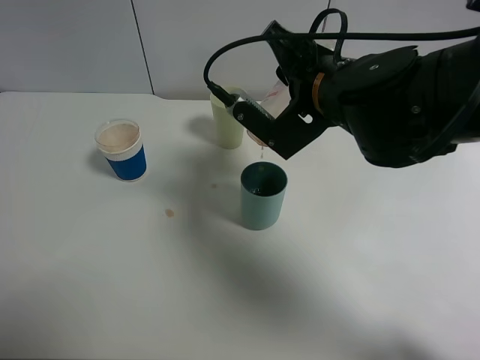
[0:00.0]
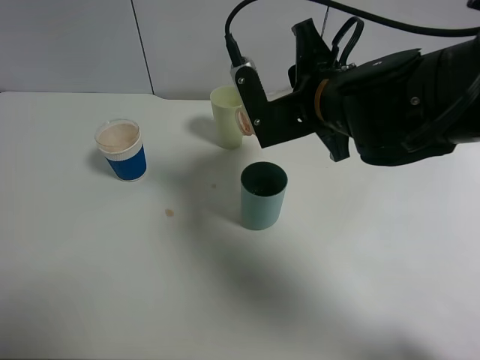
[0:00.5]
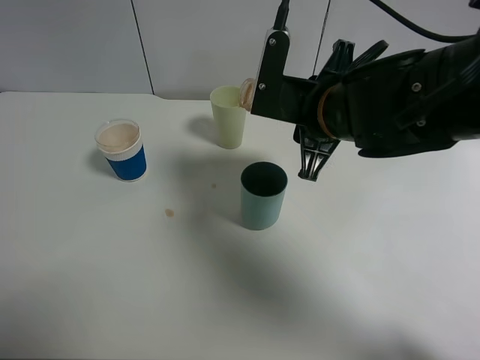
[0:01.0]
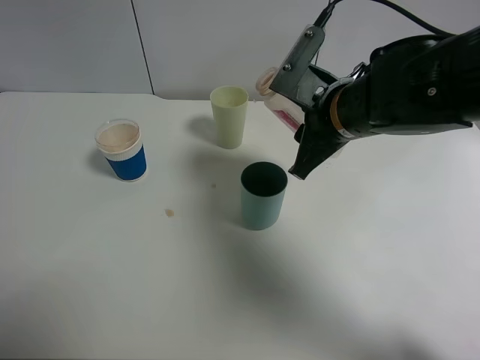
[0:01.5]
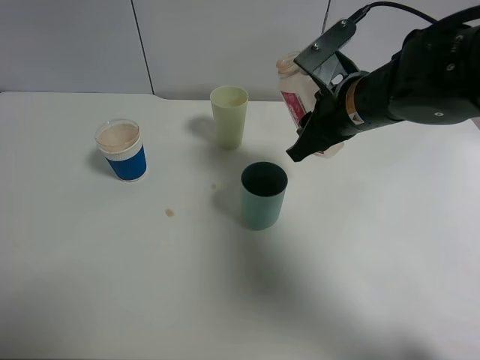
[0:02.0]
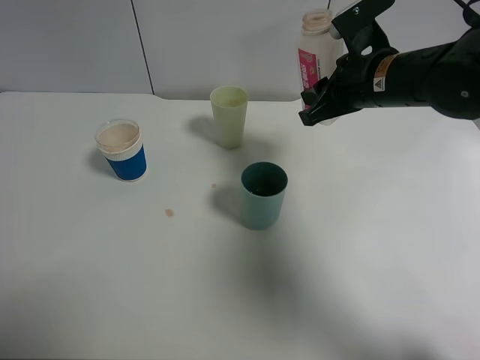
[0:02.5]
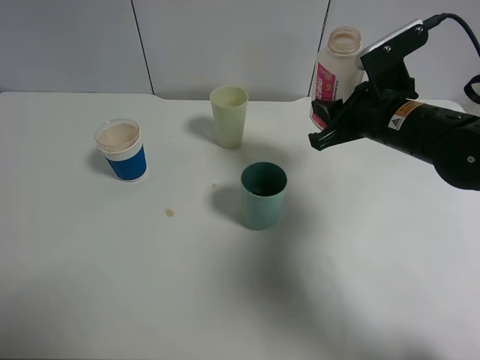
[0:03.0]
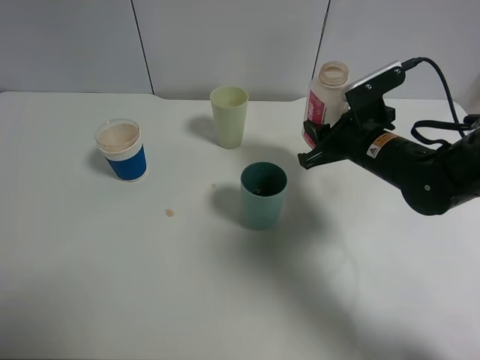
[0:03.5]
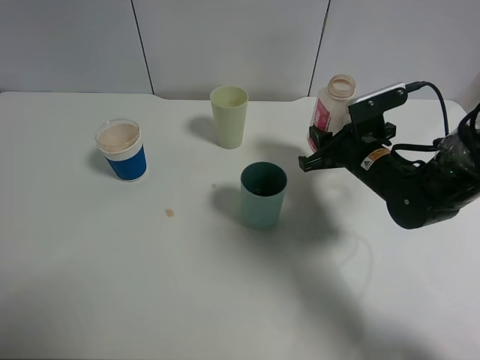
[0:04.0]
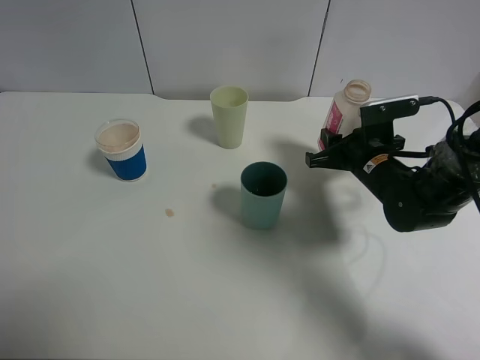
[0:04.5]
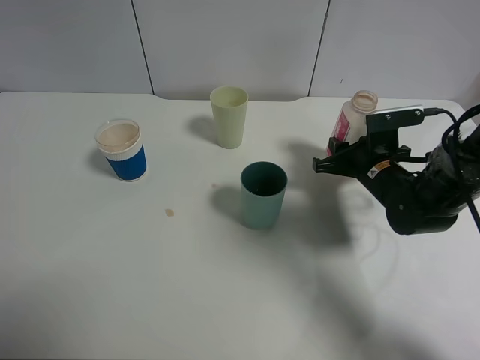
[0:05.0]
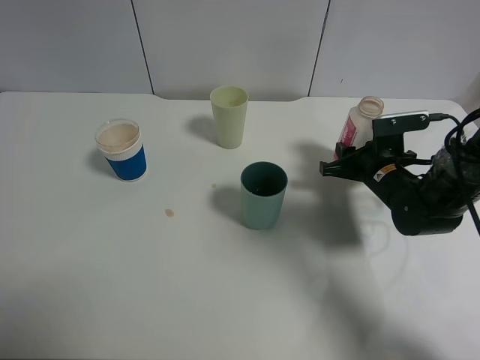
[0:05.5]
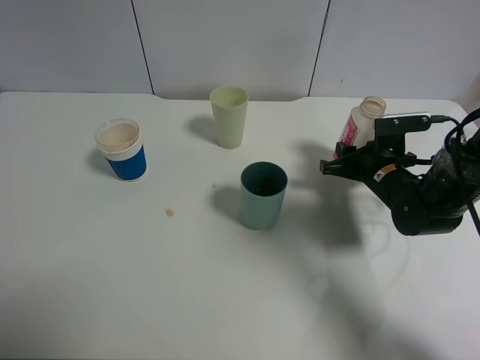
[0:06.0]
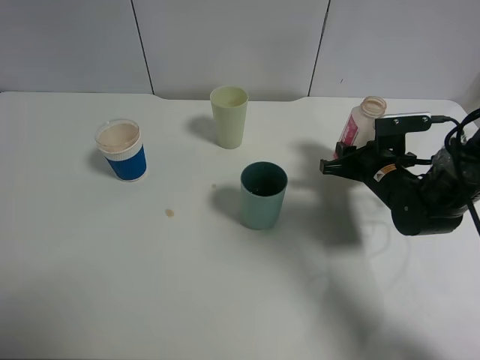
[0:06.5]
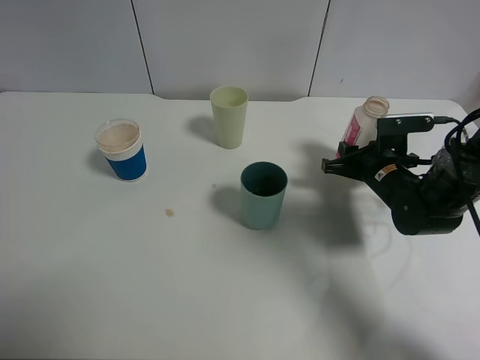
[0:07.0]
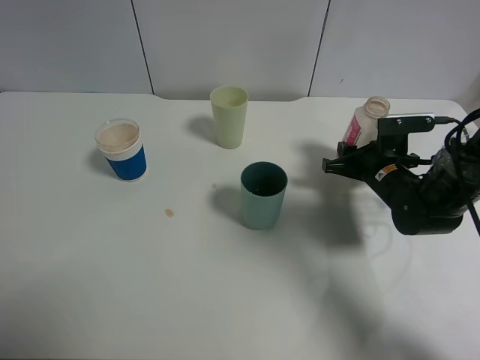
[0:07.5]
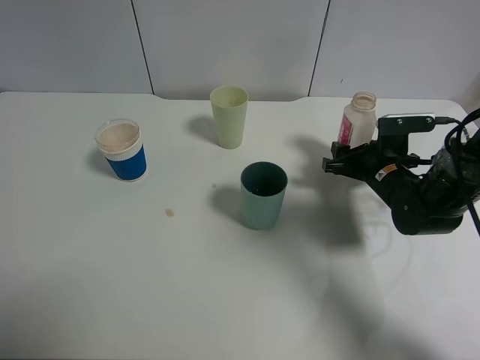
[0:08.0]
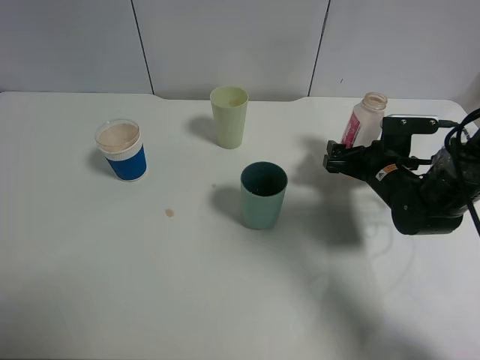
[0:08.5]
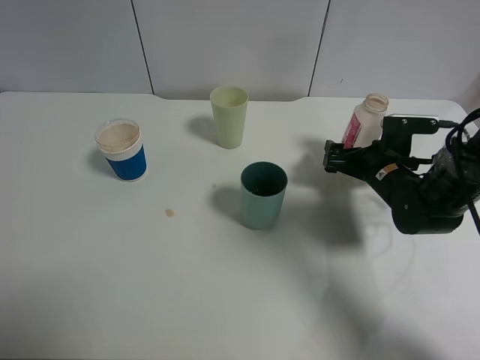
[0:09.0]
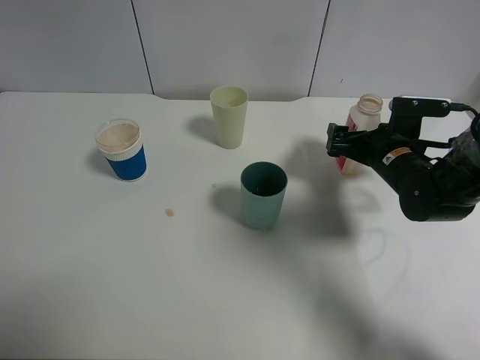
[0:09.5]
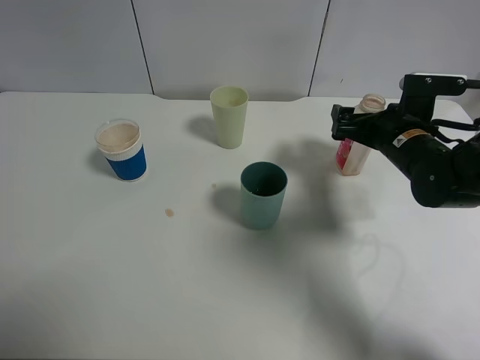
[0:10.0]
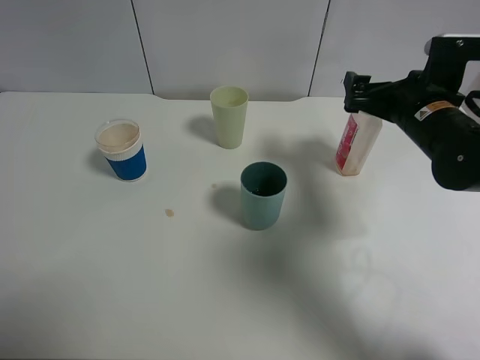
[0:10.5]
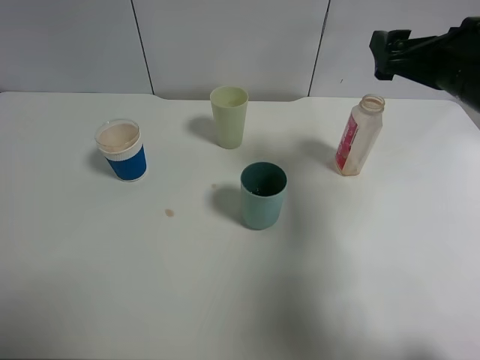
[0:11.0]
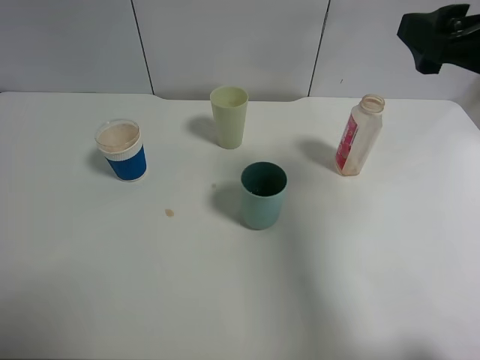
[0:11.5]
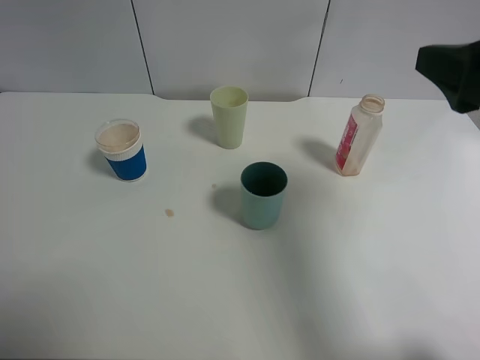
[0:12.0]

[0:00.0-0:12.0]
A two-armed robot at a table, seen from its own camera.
Task of the whole recording: use a clamp to hold the bottle of the drink, pour the beverage into a random cup, then clamp the cup containing the drink and pour the drink into another random cup.
Step, 0:01.0 to 0:10.0: Place the drink bottle on the table with right gripper.
0:00.0 to 0:02.0: The right gripper shifts by roughly 5 cm.
0:02.0 to 0:04.0: The right gripper shifts some 10 cm downward and to the right.
0:04.0 to 0:06.0: The right gripper shifts by about 5 cm.
0:06.0 to 0:08.0: The right gripper opens.
0:08.0 to 0:10.0: The right gripper goes approximately 5 cm upward, and opens its fingers.
0:10.0 to 0:12.0: The right gripper is displaced upward and backward by roughly 25 cm.

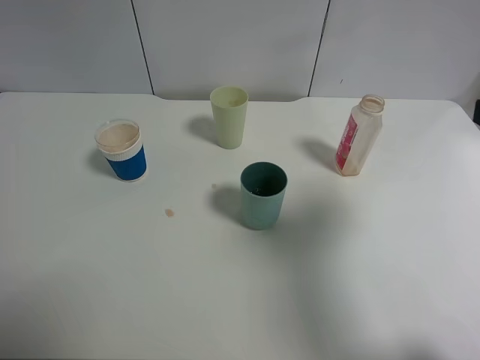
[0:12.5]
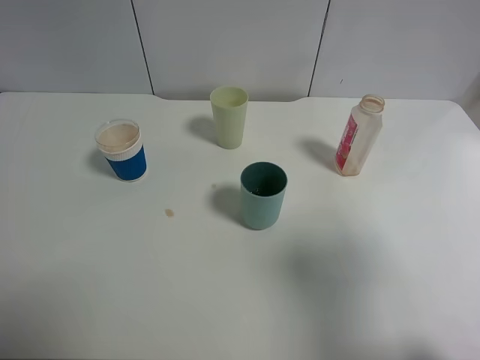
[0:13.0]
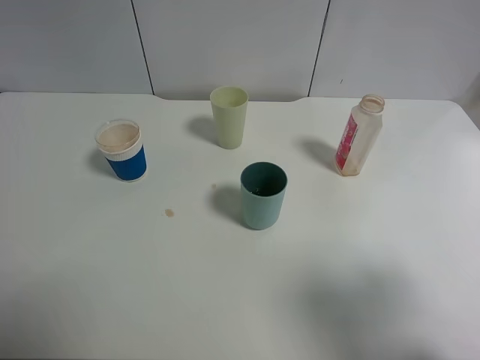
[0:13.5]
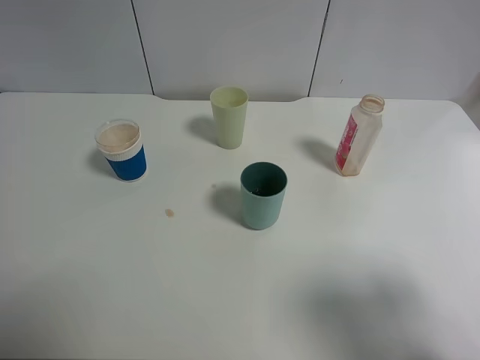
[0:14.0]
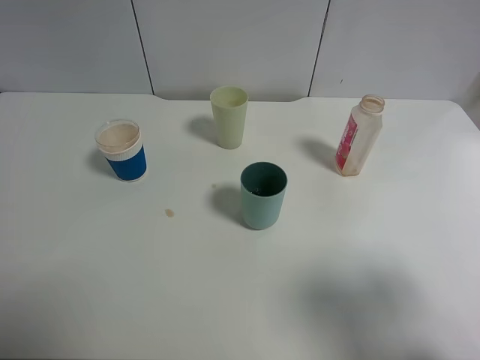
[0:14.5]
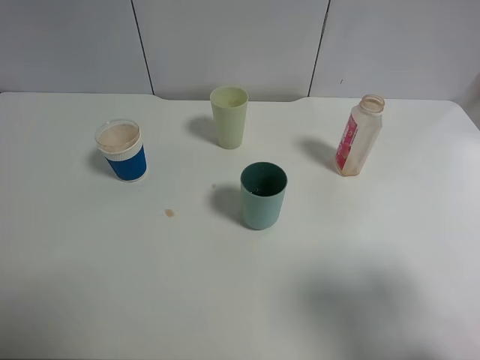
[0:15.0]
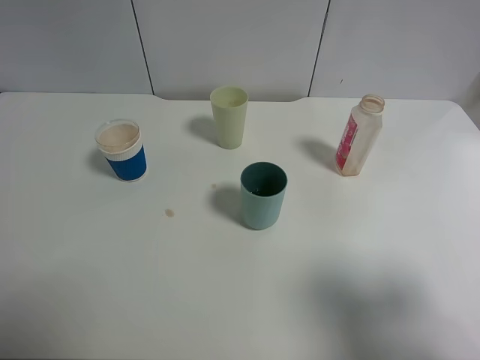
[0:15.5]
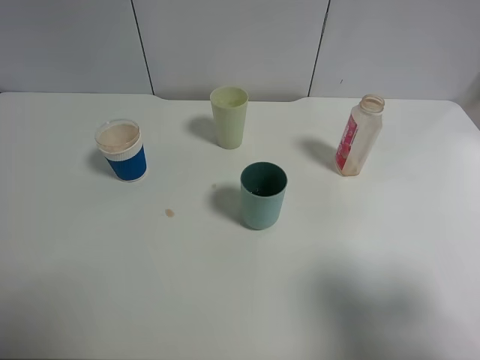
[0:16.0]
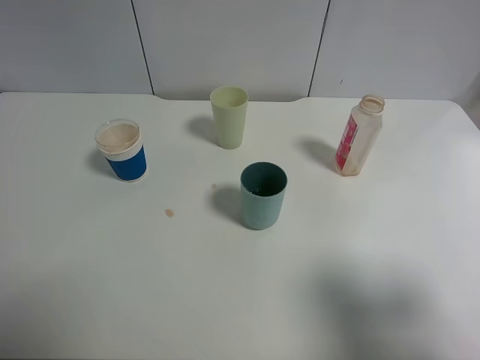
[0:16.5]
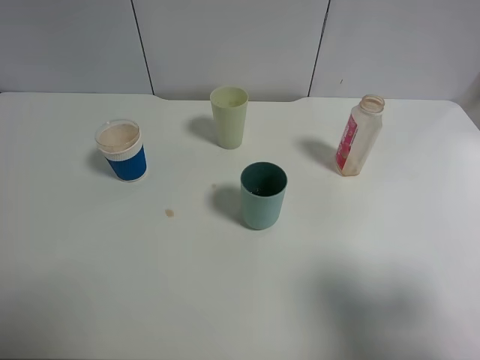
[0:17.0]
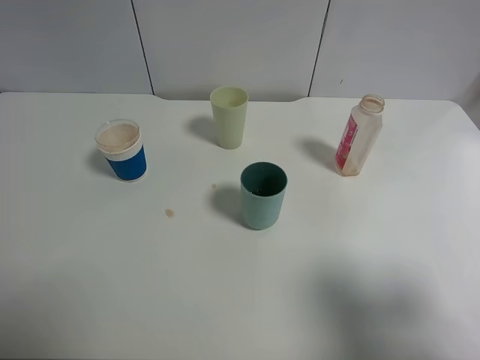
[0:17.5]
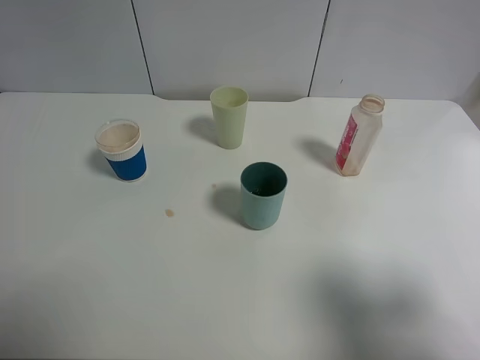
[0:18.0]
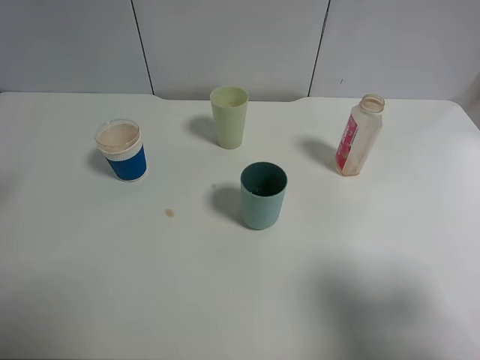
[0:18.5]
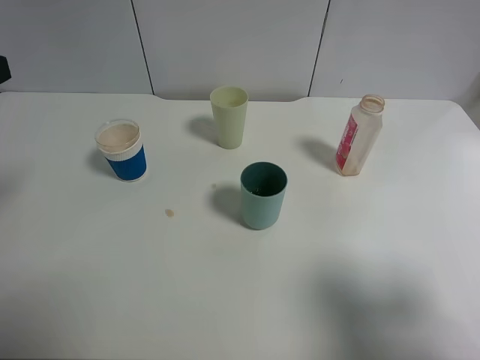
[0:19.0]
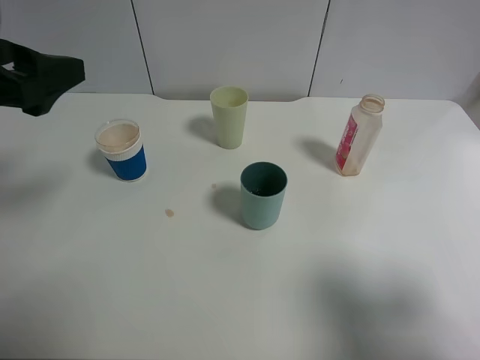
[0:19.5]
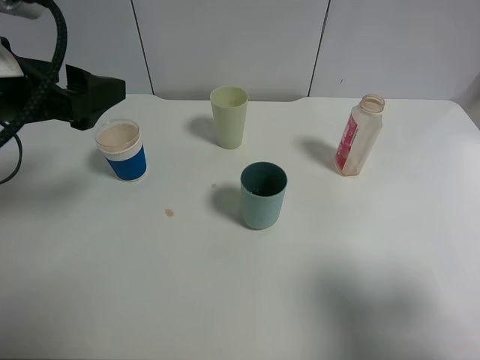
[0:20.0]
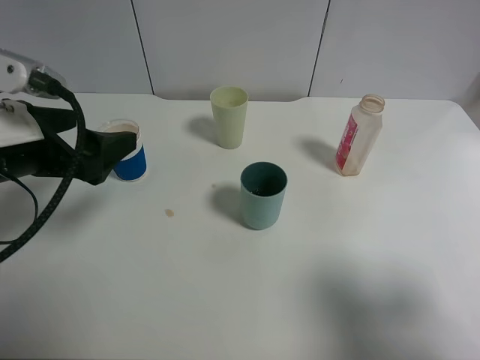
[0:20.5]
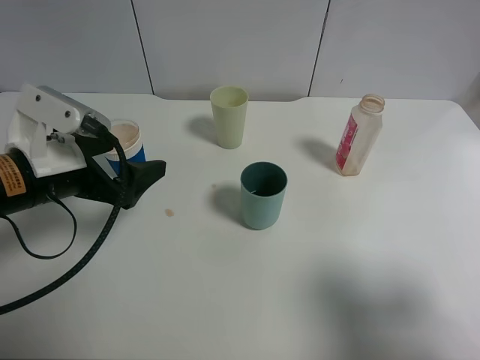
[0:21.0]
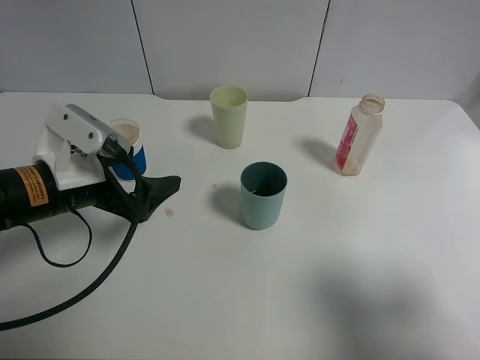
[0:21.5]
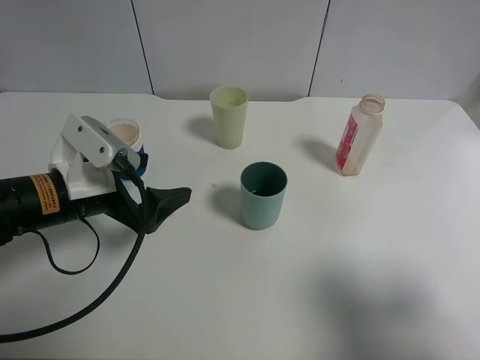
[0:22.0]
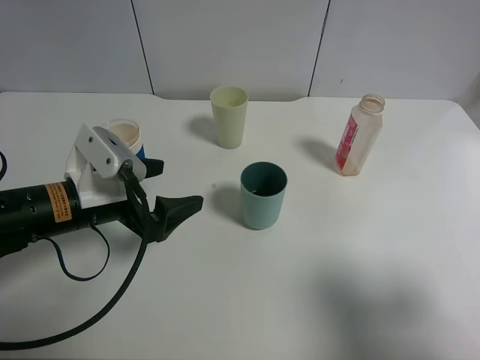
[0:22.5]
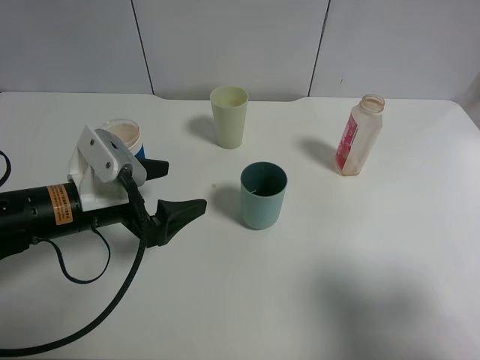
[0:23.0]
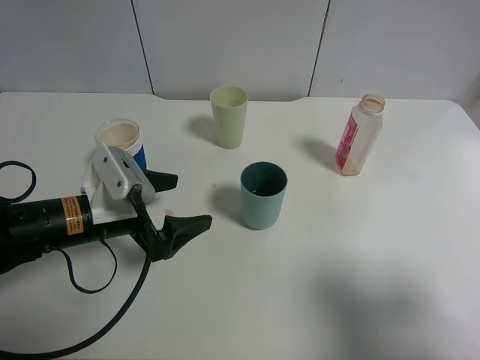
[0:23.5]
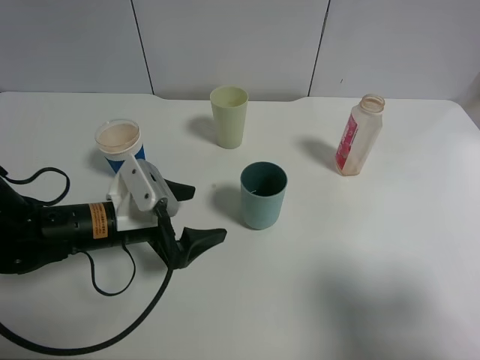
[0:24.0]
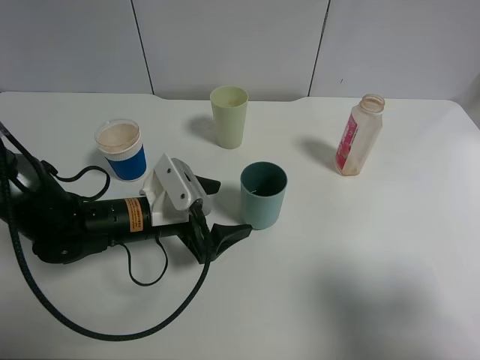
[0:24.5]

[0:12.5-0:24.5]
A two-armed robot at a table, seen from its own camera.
Task of the whole recording: use a clamp to hold the bottle of the drink, pour the beverage into a random cup, then clamp the cup containing the drink and pour the drink into another random cup.
0:12.5 to 0:14.5: The right gripper moves backward, roughly 10 cm.
0:18.5 to 0:20.5: The left gripper is displaced downward and to the right by approximately 10 cm.
0:20.5 to 0:22.5: The left gripper moves downward, approximately 10 cm.
0:22.5 to 0:24.5: The left gripper is displaced to the right and downward by roughly 10 cm.

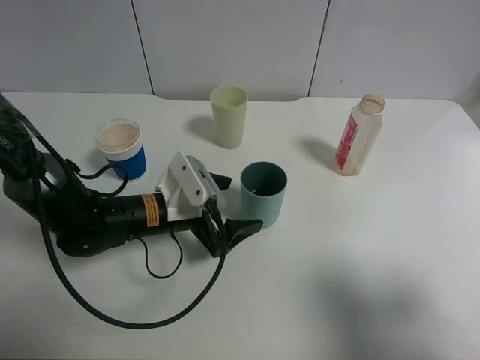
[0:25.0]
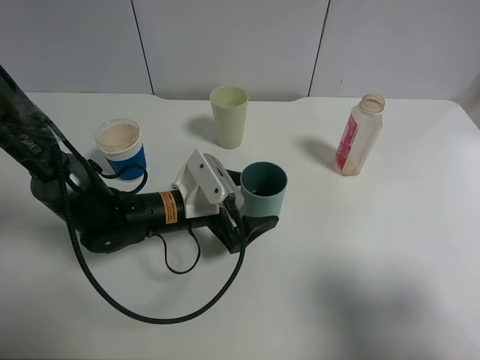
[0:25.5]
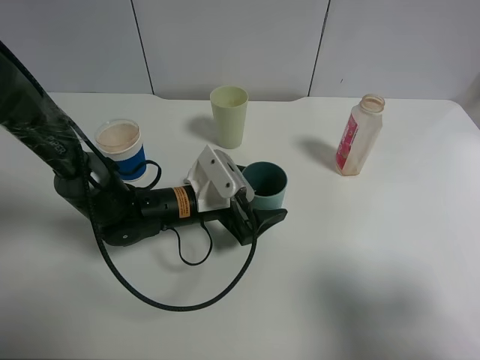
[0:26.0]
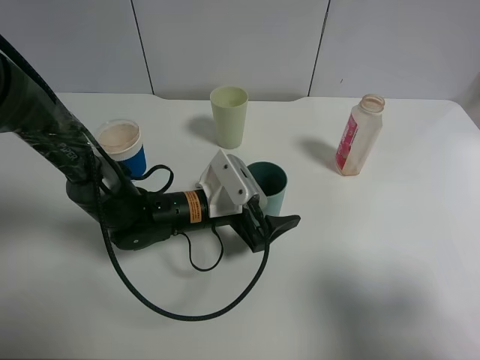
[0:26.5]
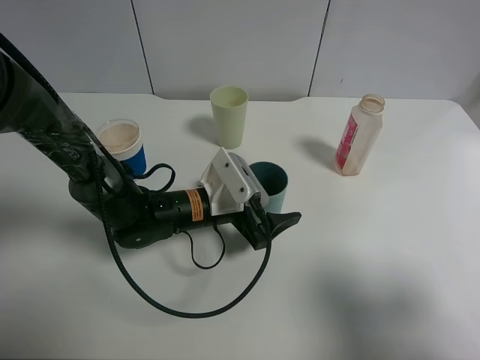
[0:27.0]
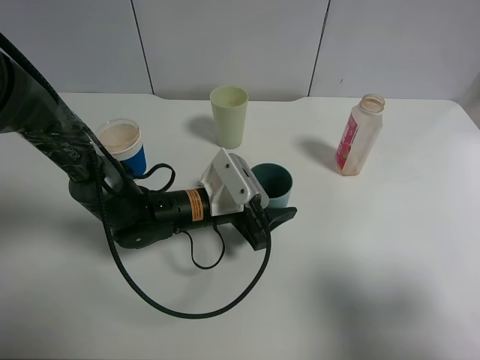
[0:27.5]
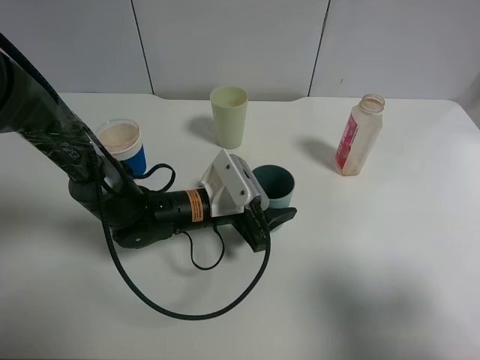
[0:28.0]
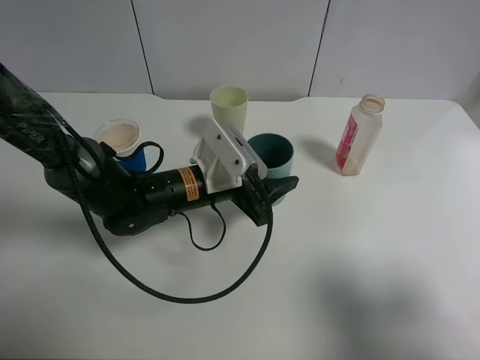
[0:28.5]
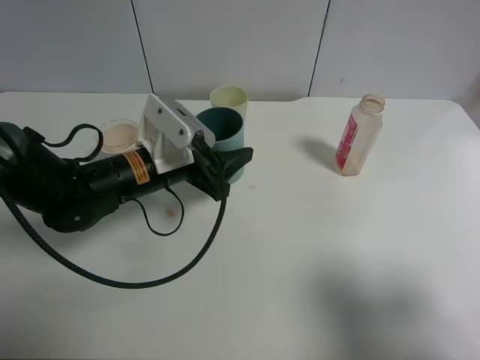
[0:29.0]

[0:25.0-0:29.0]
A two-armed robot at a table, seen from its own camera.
Task of the whole recording: use a clamp to hold the bottle of the drink, pour the beverage into a random cup, then clamp the cup containing the drink and pour the drink into another random cup.
Step, 0:25.0 to 0:28.5: Pick up the blue plastic cup bottle with left gripper.
0:25.0 to 0:27.0: The left gripper goes some 5 cm to the right.
0:27.0 to 0:29.0: The left gripper goes some 10 cm upward and to the left, and closes.
